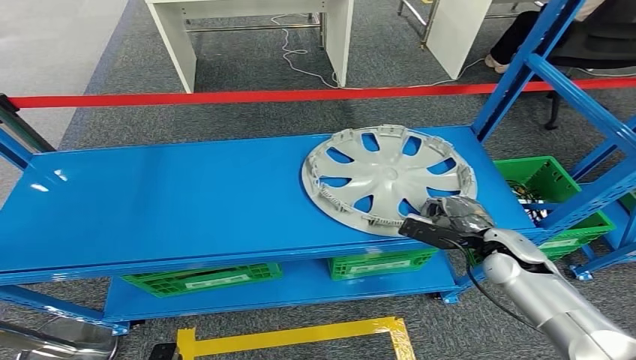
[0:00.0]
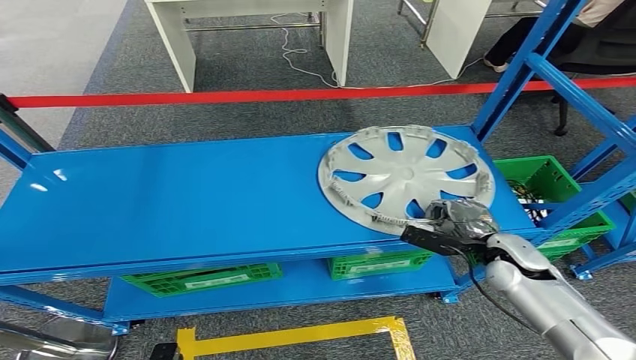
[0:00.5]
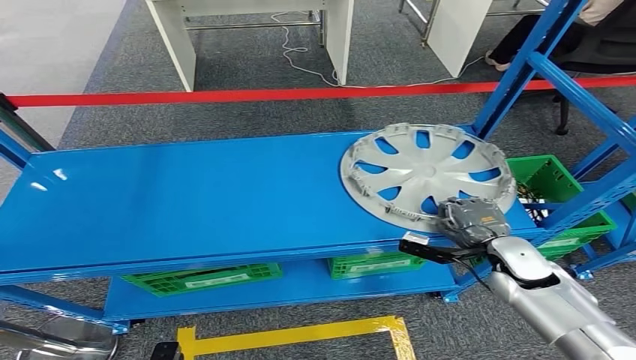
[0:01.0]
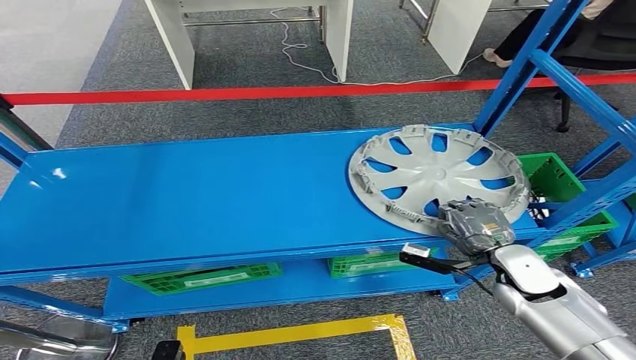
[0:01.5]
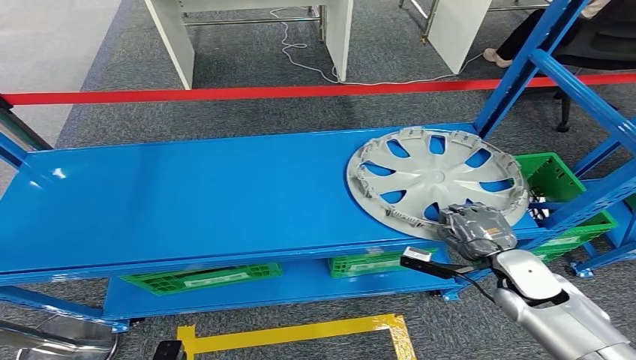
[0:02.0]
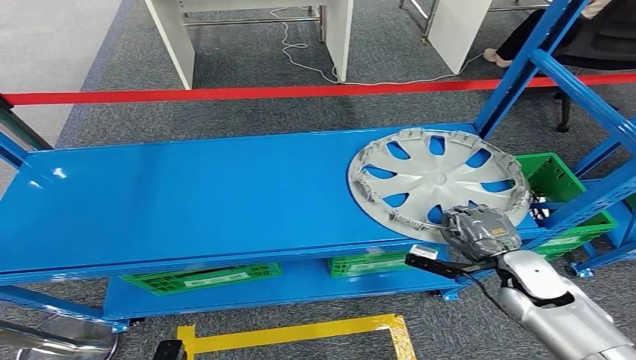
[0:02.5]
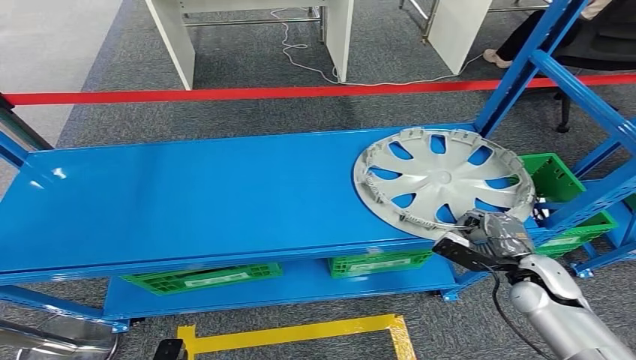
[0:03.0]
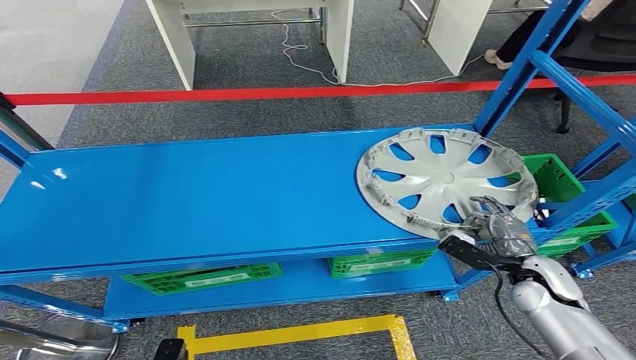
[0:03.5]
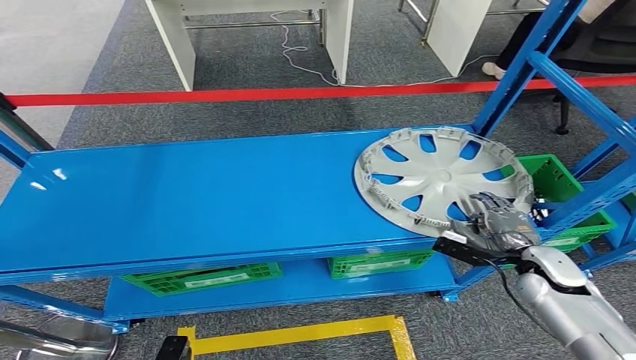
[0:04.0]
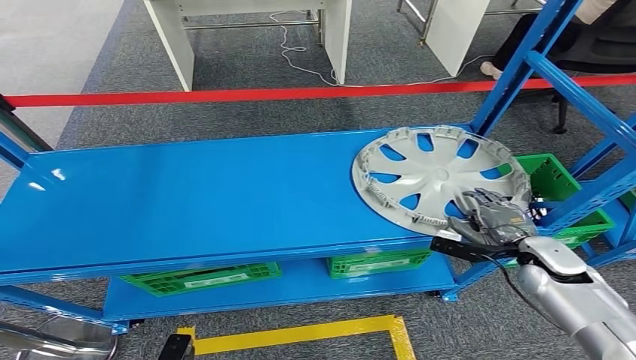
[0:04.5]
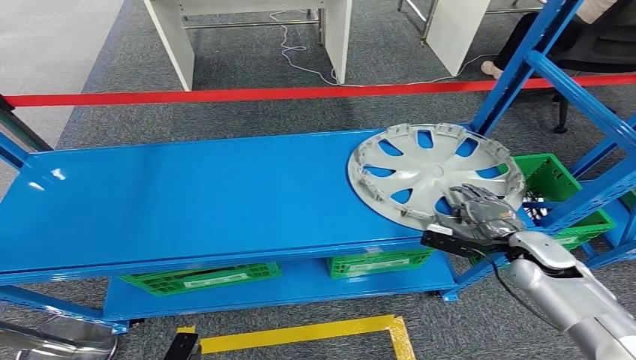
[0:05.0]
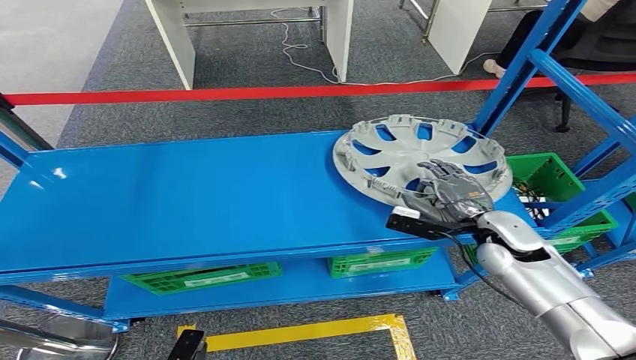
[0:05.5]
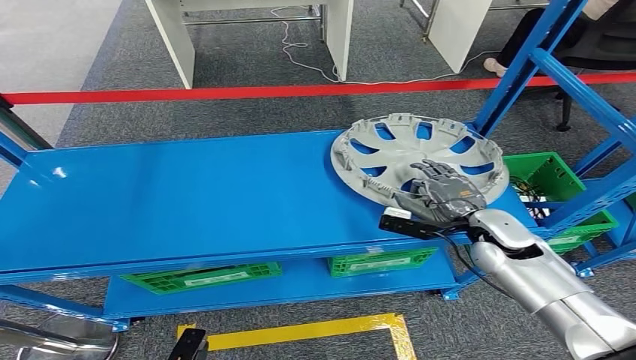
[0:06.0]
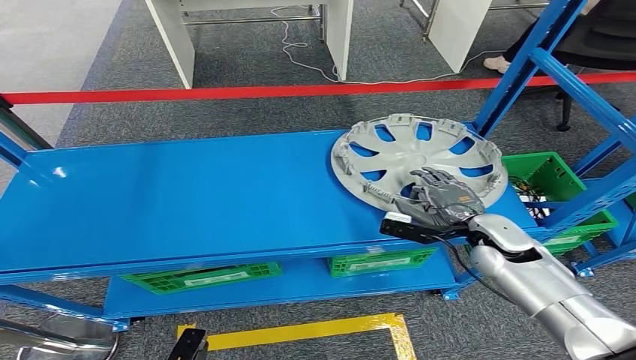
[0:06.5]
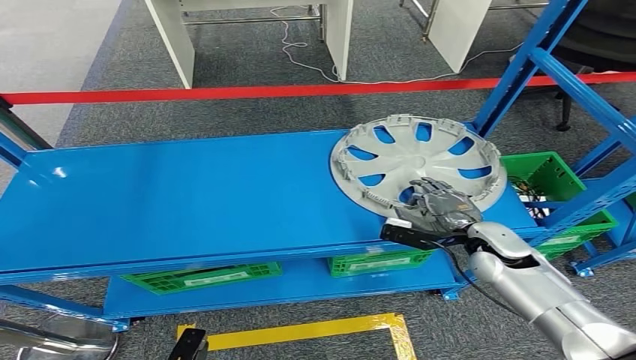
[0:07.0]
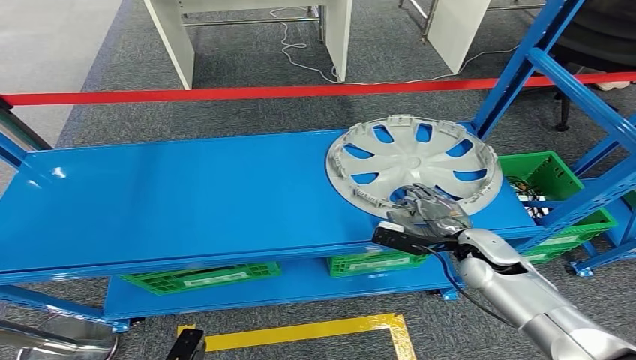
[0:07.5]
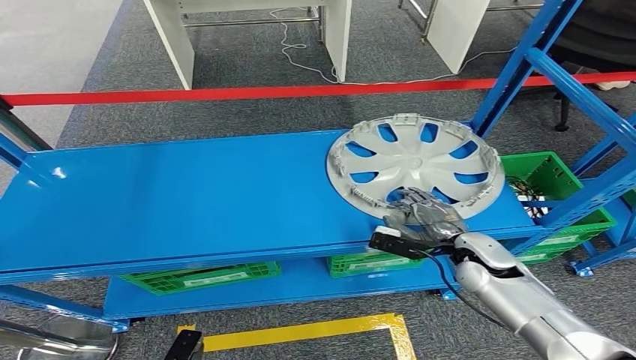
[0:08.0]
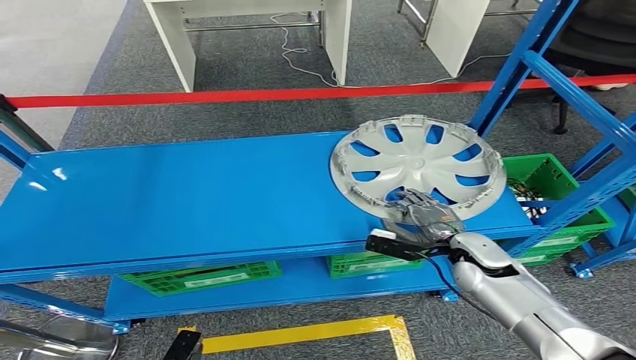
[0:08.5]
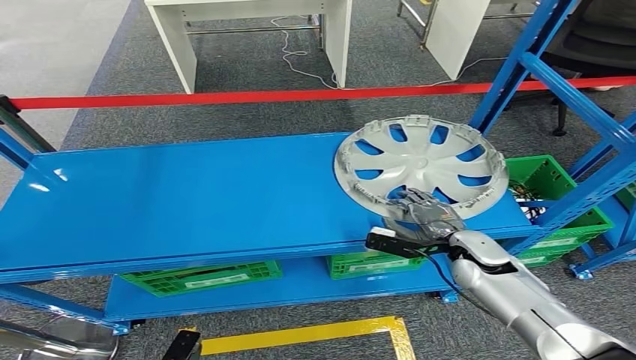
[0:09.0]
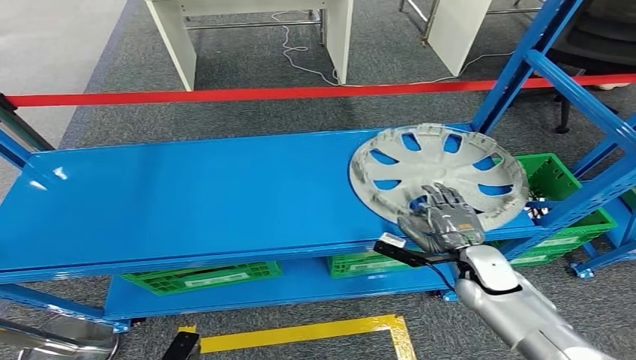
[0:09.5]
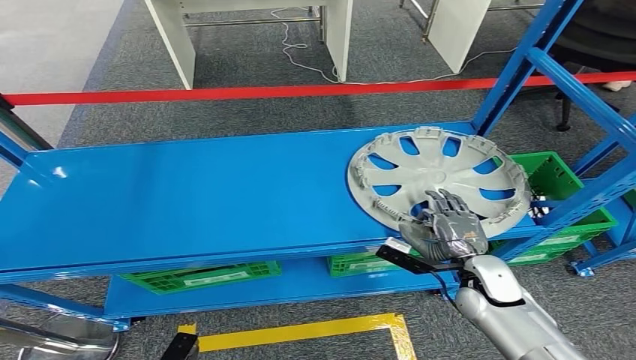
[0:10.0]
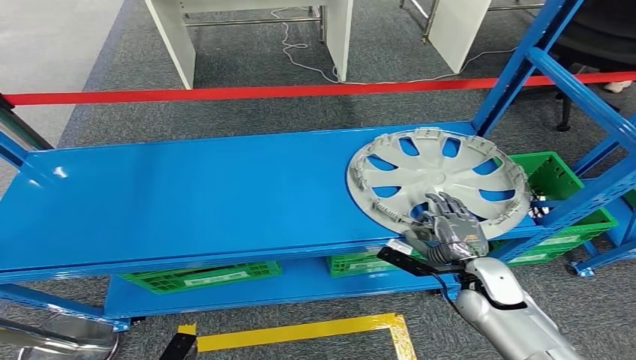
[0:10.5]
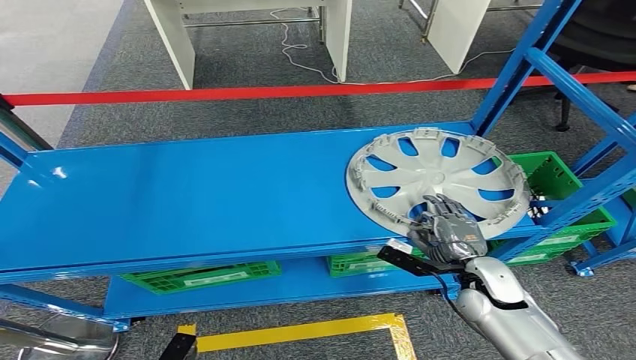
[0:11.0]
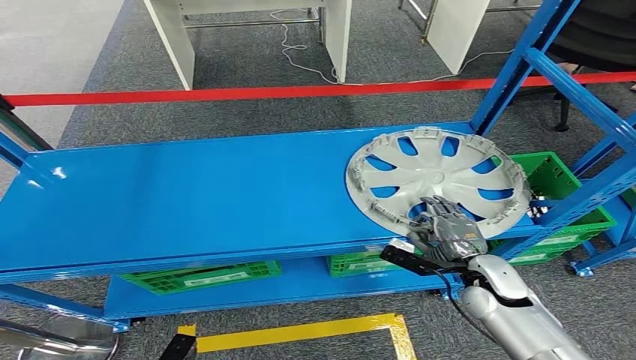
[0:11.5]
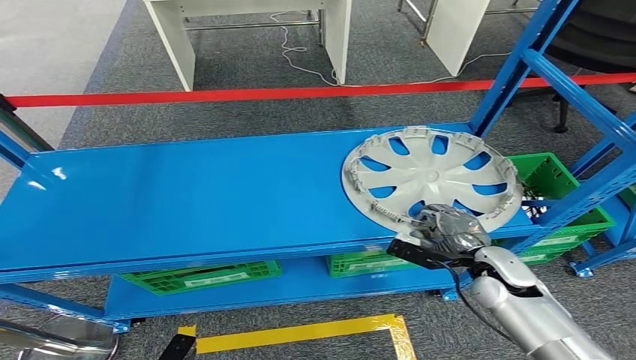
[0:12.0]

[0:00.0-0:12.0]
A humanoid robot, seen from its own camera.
Step, 0:00.0 to 0:11.5: Take small components from the rack.
0:02.0 to 0:04.0: The right hand moves to the right, roughly 5 cm.
0:04.0 to 0:06.0: The right hand moves to the left, upward and forward, approximately 15 cm.
0:06.0 to 0:08.0: The right hand goes some 5 cm downward.
0:10.0 to 0:12.0: The hands stay close to where they were, moving slightly.

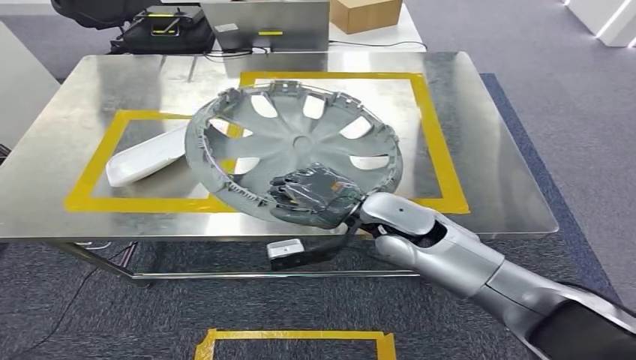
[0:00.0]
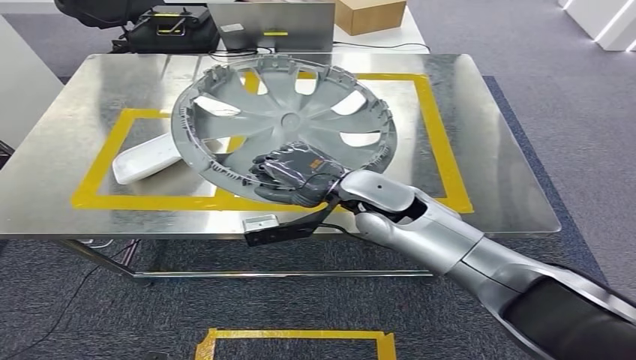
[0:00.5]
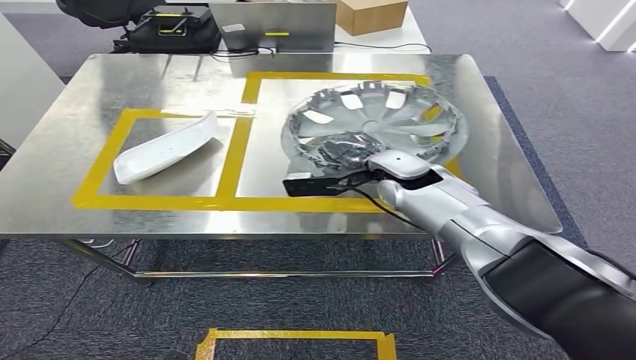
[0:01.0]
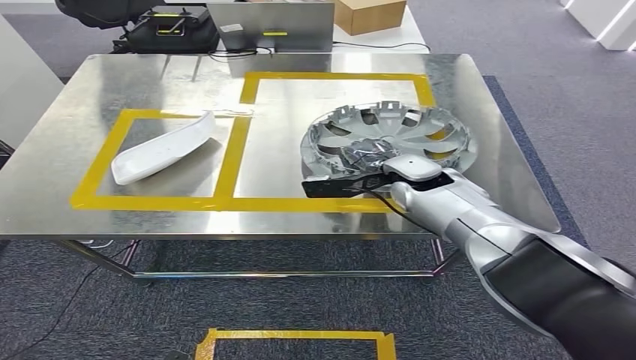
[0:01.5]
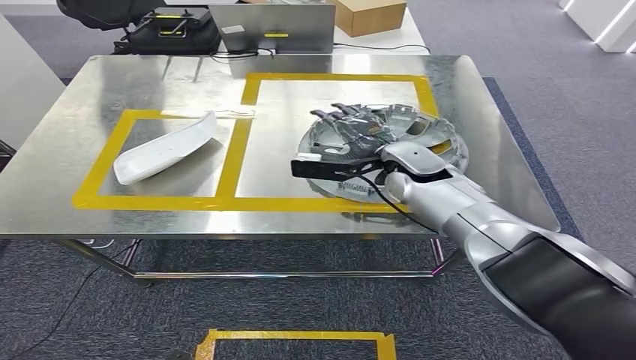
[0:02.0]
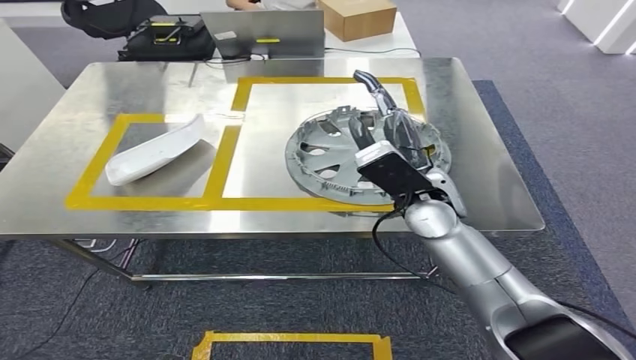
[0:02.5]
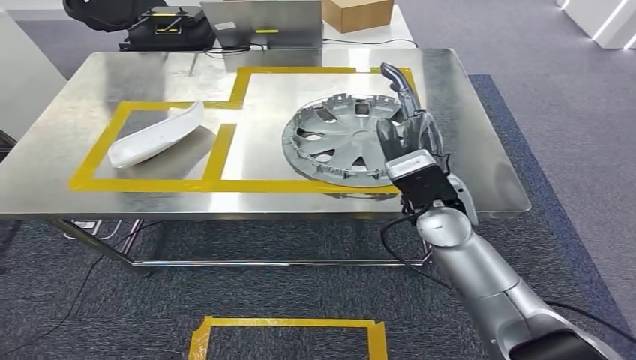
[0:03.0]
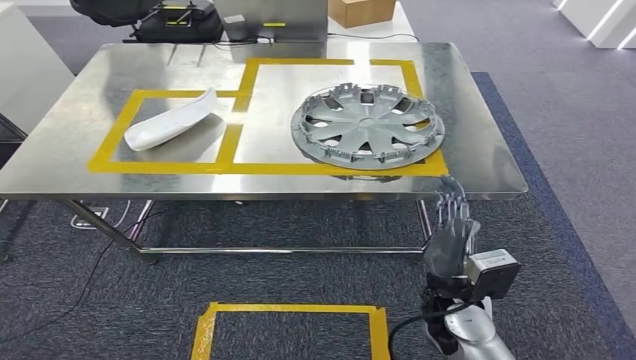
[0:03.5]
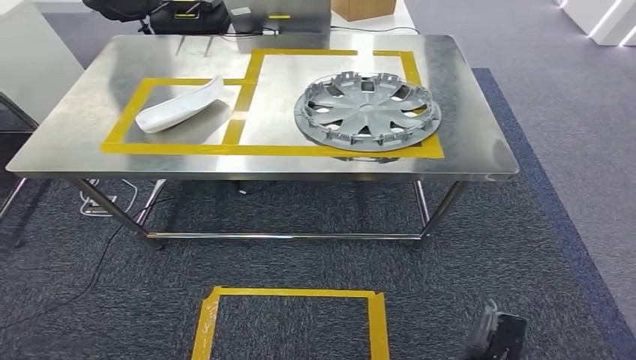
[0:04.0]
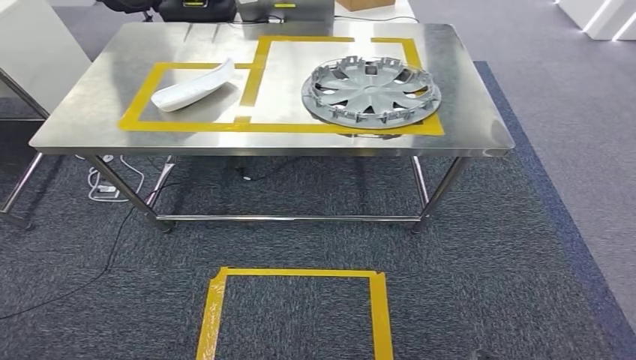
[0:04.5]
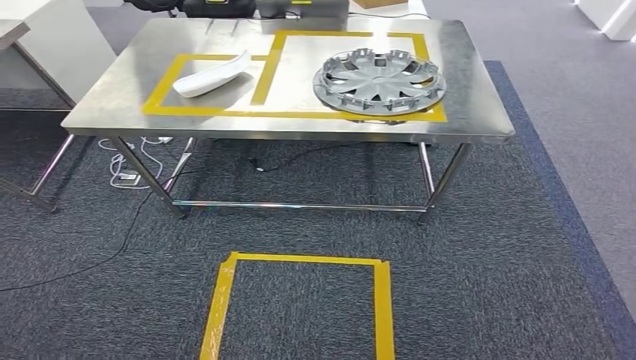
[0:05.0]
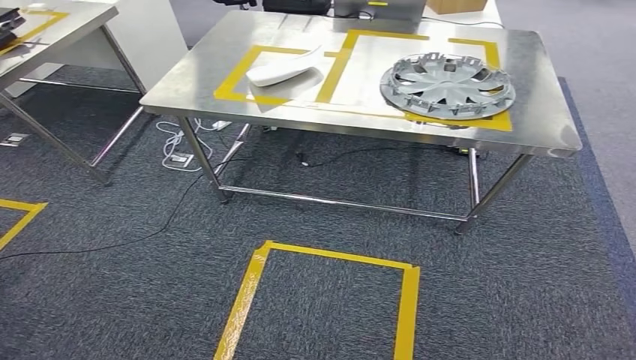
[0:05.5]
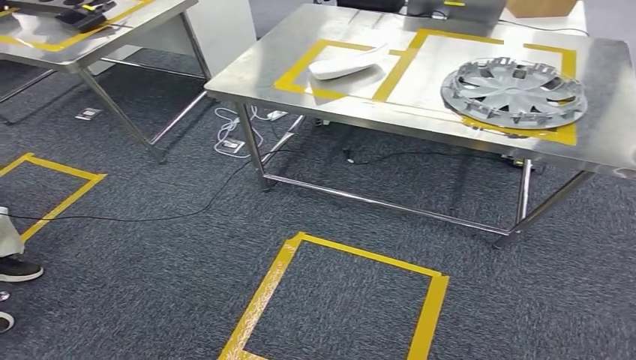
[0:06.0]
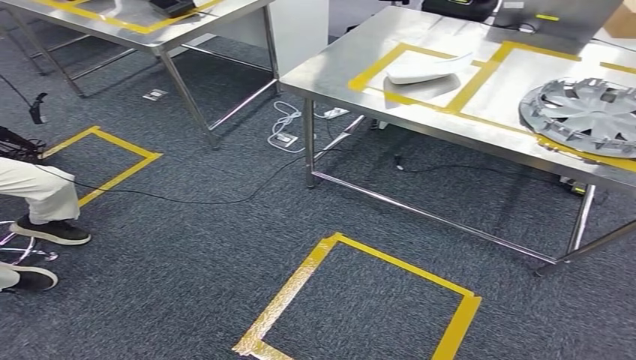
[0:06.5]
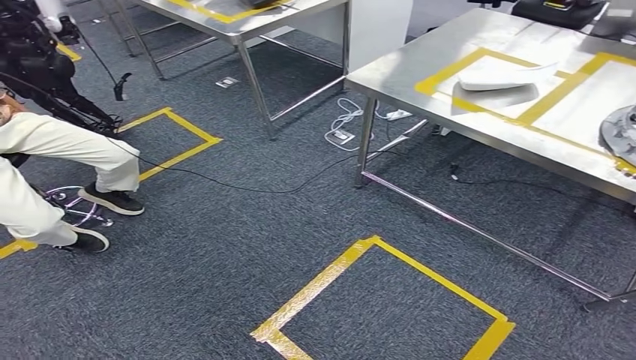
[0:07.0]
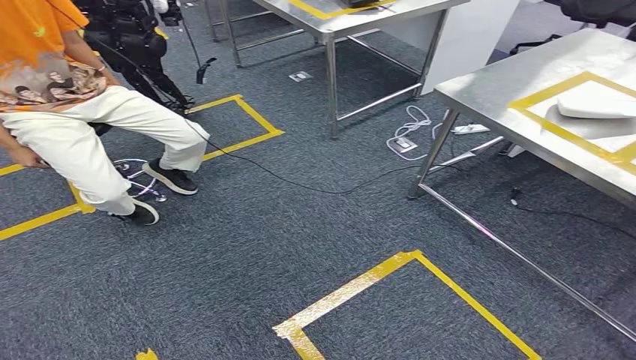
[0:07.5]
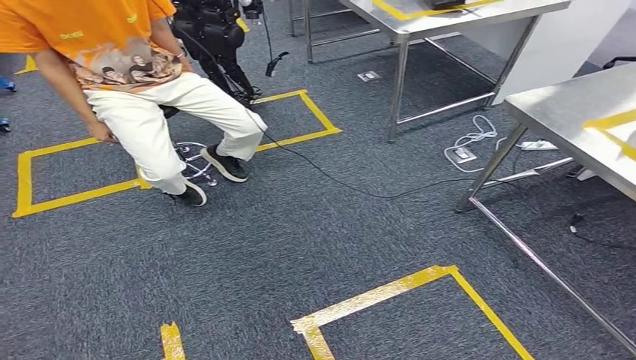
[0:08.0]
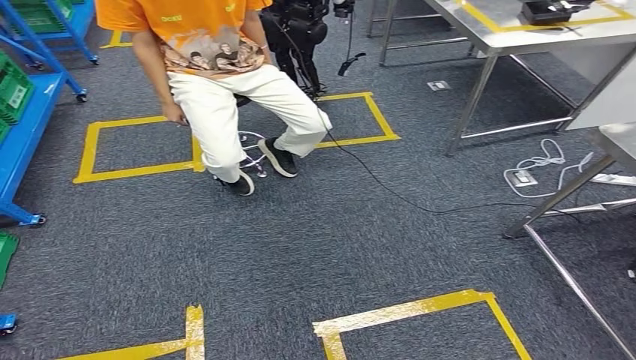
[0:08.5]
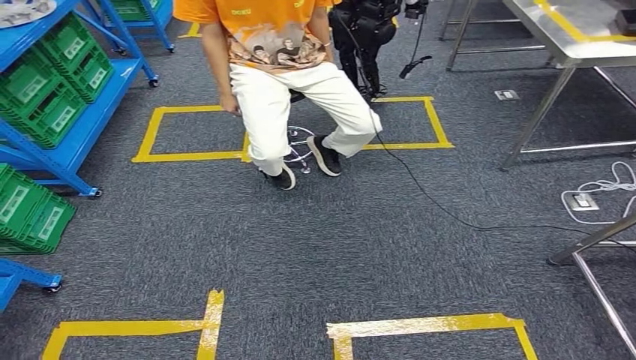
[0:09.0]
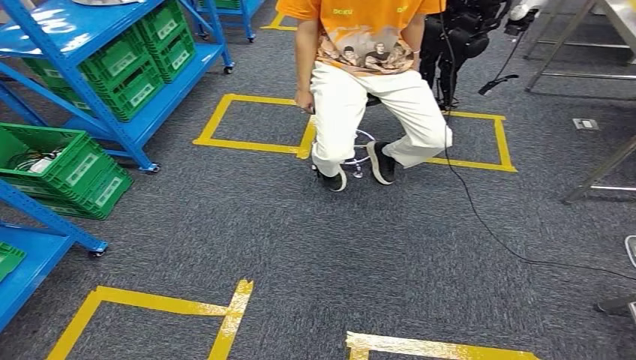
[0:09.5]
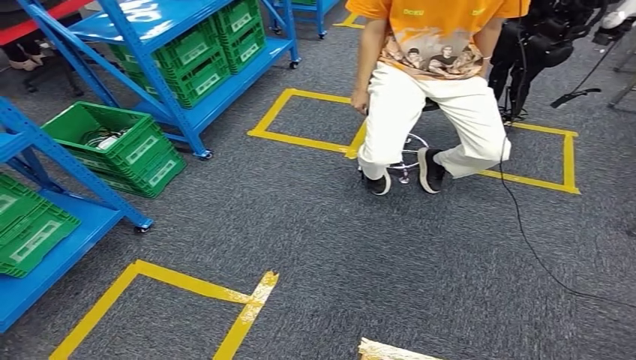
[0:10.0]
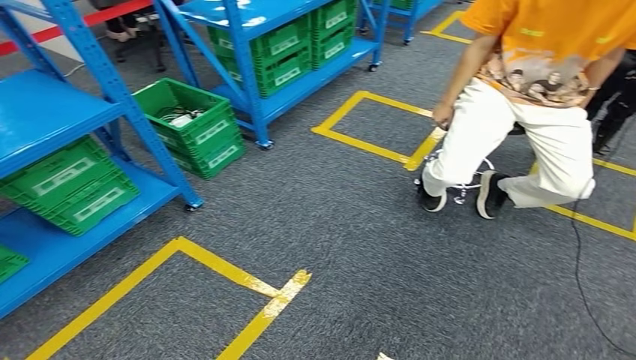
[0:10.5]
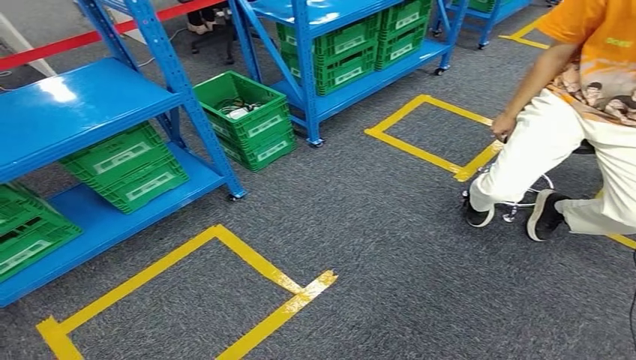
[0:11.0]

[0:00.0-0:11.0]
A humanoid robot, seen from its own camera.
Step, 0:00.0 to 0:08.5: Insert the small parts into the corresponding holes on the workbench.
